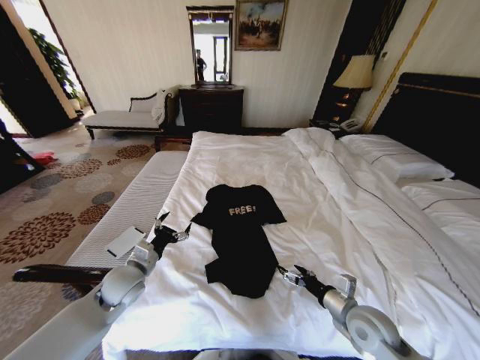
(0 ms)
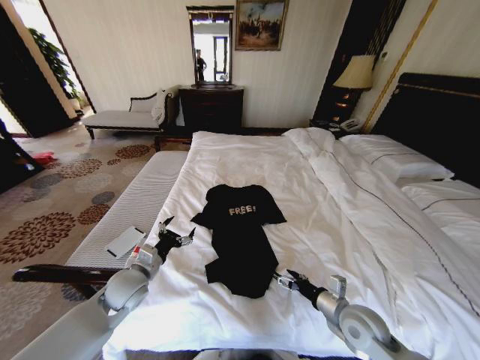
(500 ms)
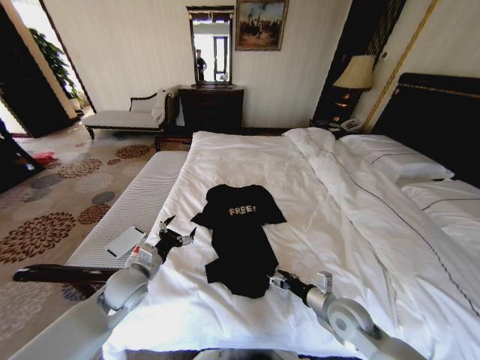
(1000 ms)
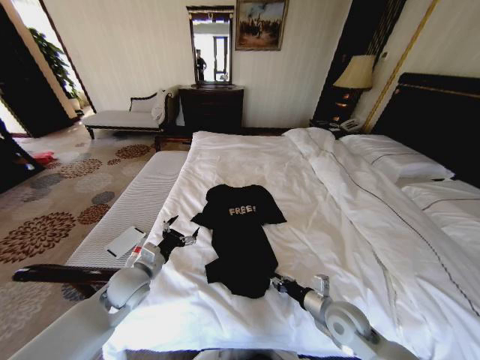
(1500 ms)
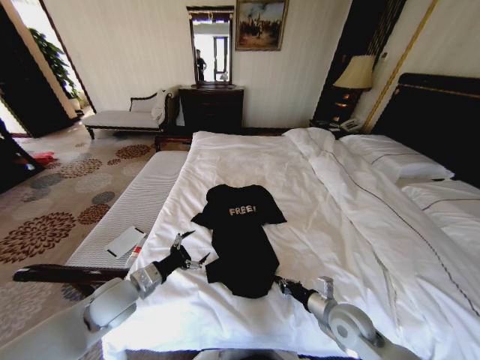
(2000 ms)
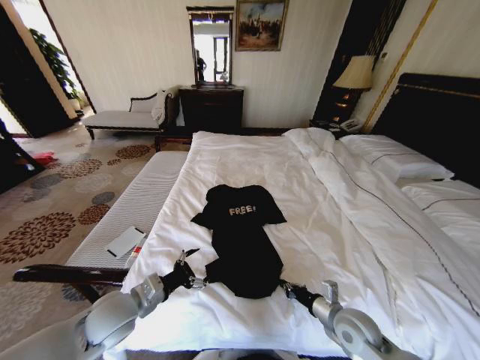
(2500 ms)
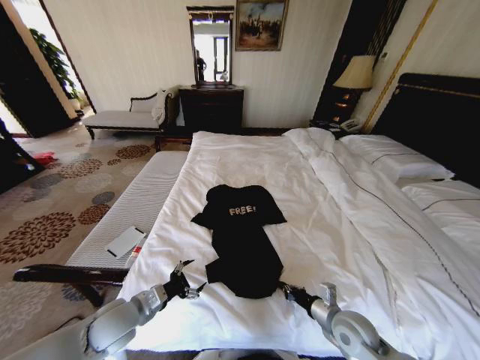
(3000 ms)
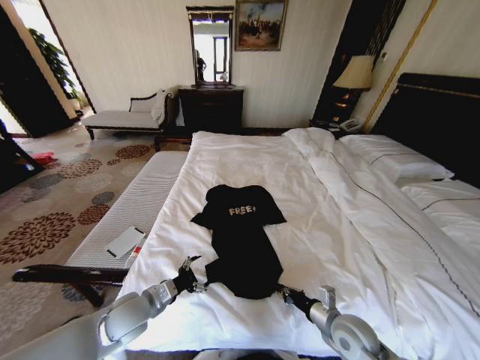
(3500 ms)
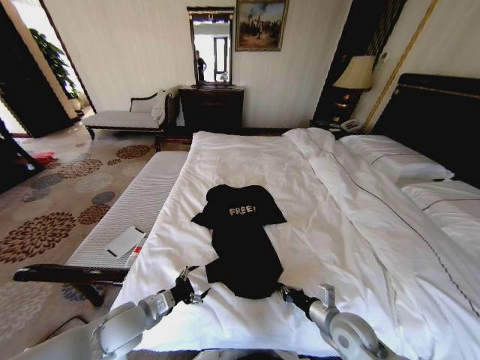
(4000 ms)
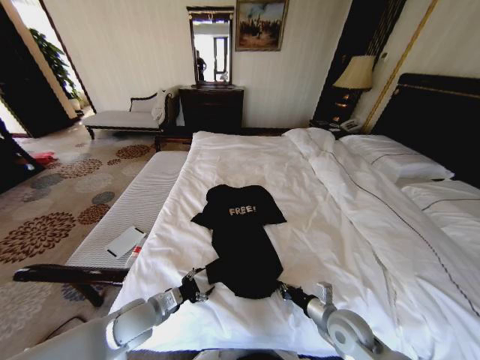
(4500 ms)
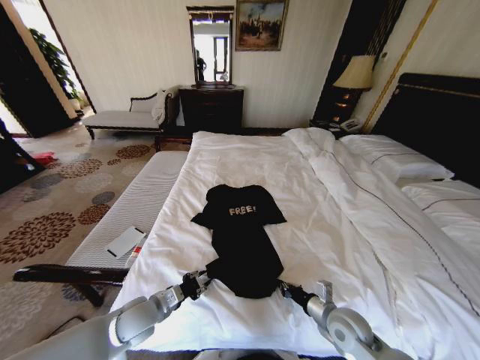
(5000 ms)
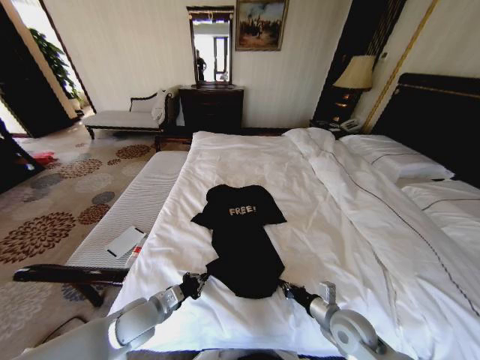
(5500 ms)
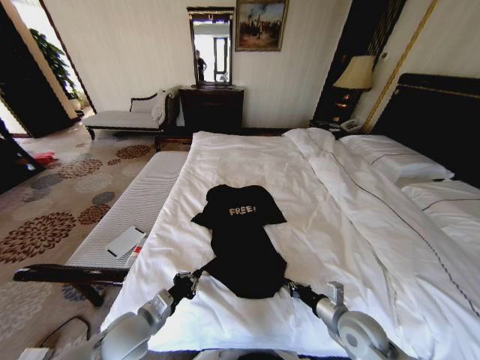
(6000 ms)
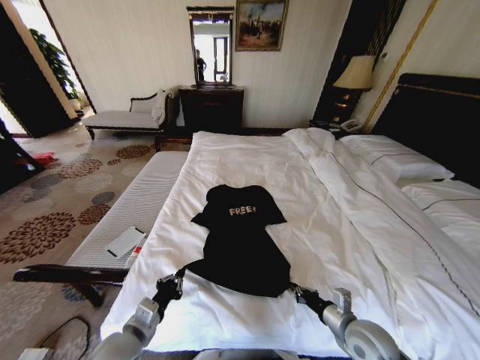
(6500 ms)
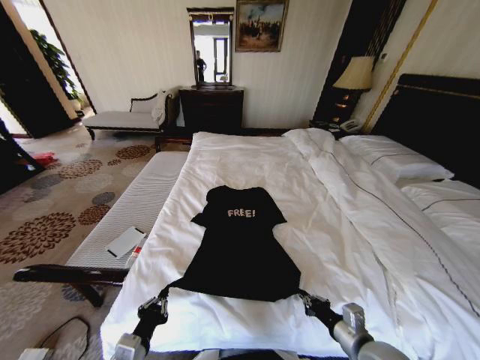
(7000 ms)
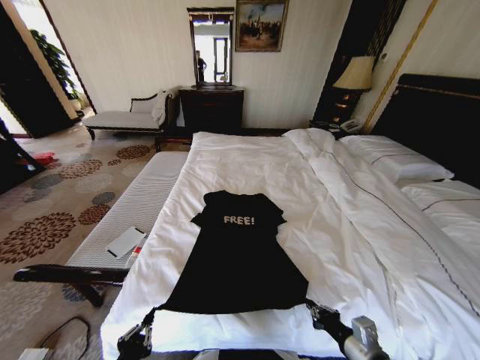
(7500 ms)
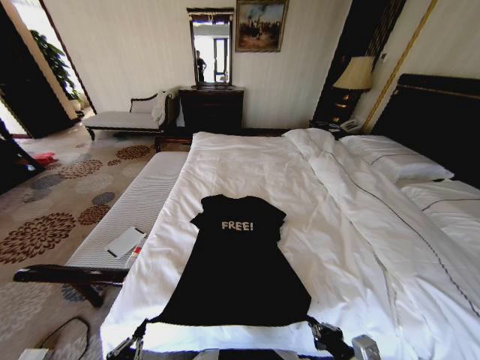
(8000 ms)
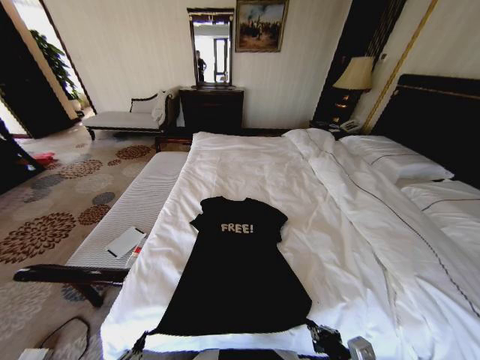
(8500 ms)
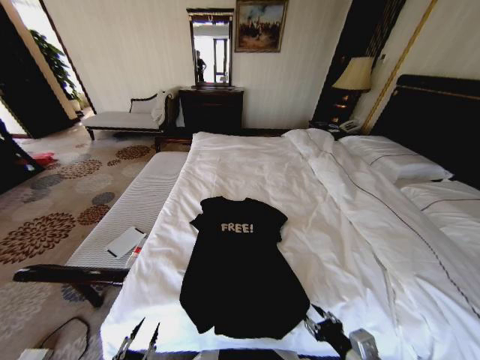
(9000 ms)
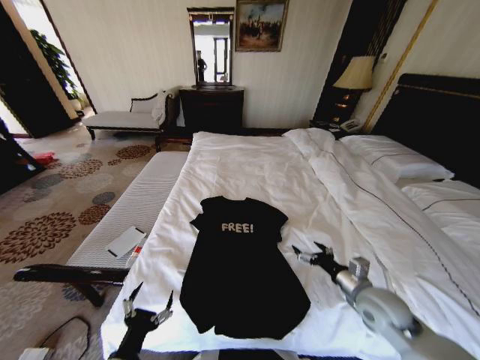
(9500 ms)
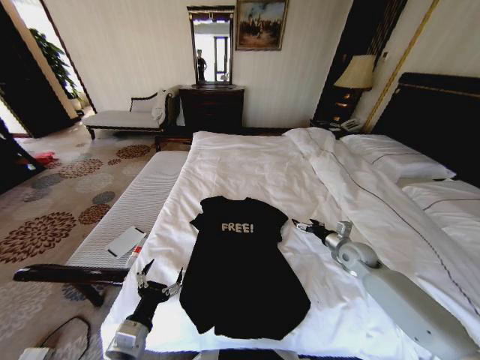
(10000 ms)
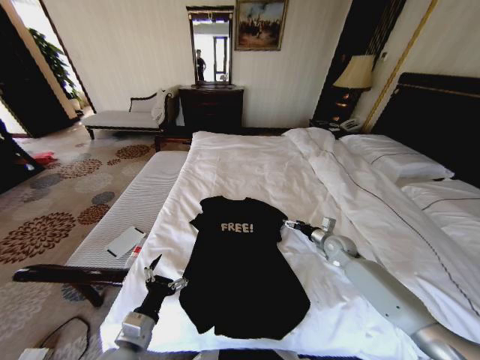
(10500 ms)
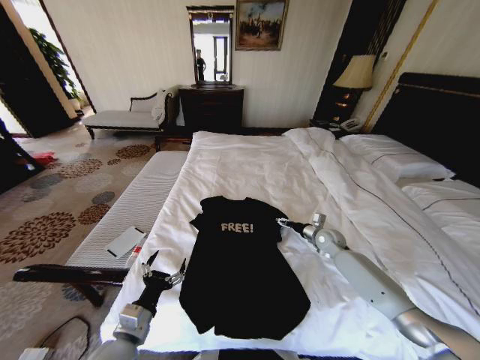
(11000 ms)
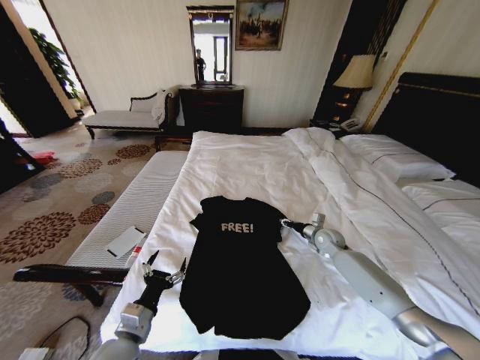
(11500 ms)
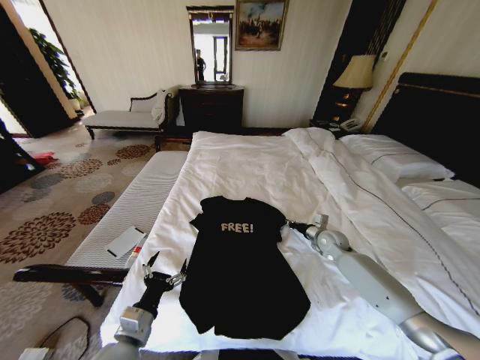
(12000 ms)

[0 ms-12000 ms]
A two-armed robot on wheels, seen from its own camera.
Task of the whole recording: Fold the clothes on the bed.
0 ms to 2000 ms: The right gripper closes.
2000 ms to 4000 ms: The left gripper changes place by some 5 cm.
4000 ms to 6000 ms: The left gripper closes.
6000 ms to 8000 ms: The right gripper is displaced backward by approximately 15 cm. The left gripper is displaced backward by roughly 20 cm.
8000 ms to 10000 ms: The right gripper shifts approximately 30 cm forward, and opens up. Meanwhile the left gripper is displaced forward by about 15 cm, and opens its fingers.
10000 ms to 12000 ms: The right gripper shifts some 5 cm forward, and closes up.

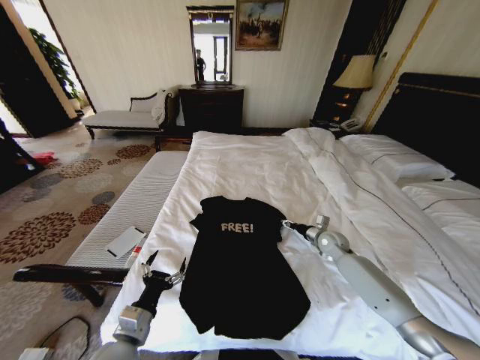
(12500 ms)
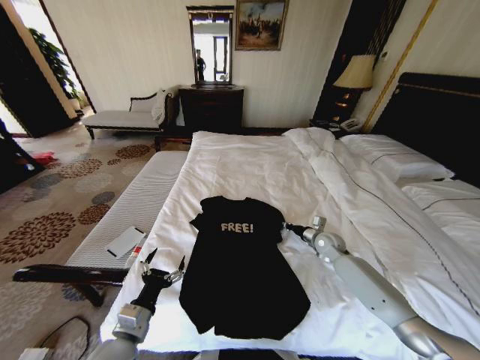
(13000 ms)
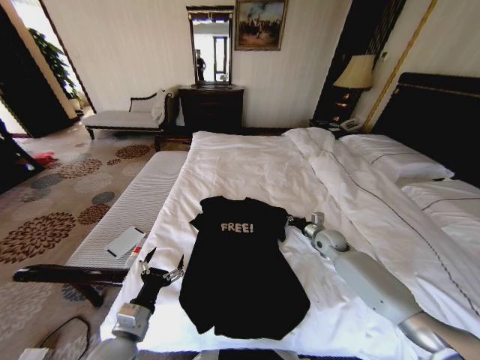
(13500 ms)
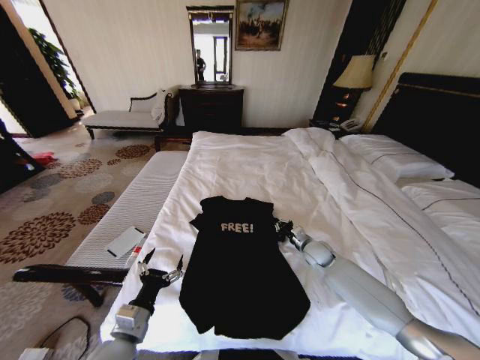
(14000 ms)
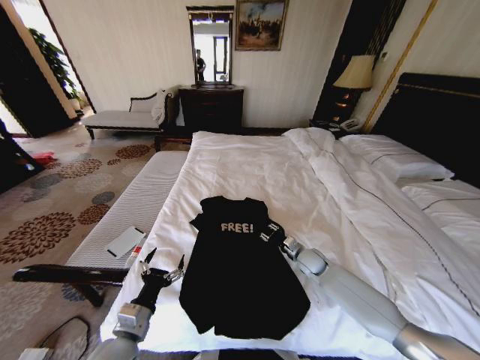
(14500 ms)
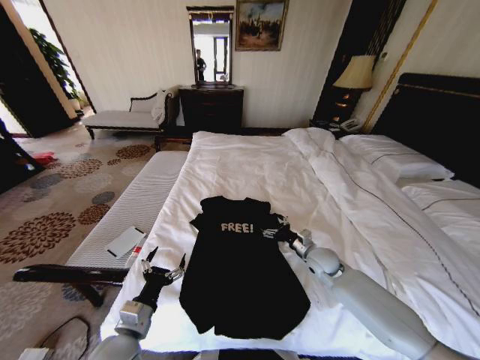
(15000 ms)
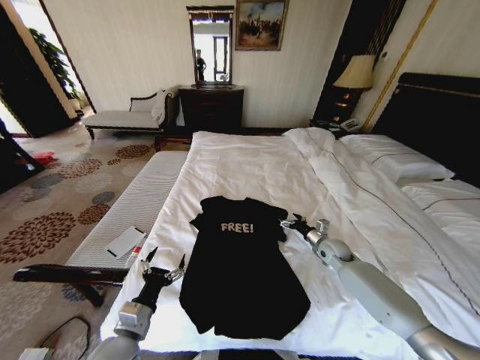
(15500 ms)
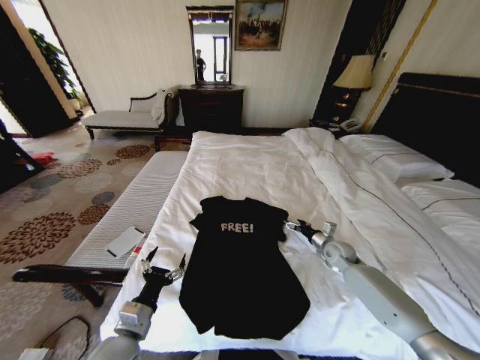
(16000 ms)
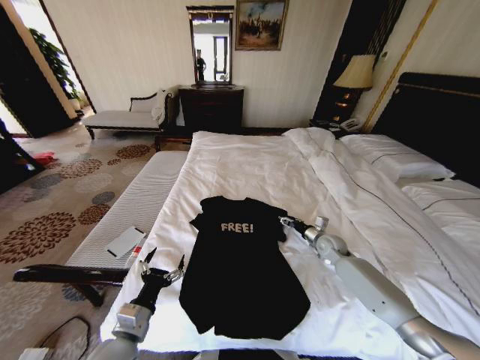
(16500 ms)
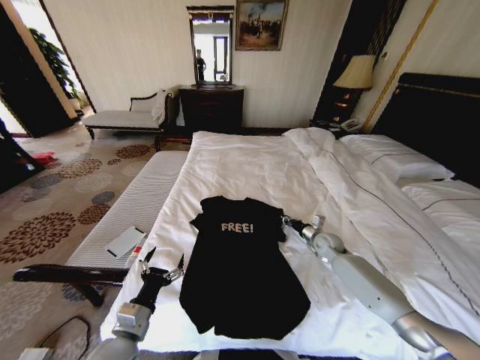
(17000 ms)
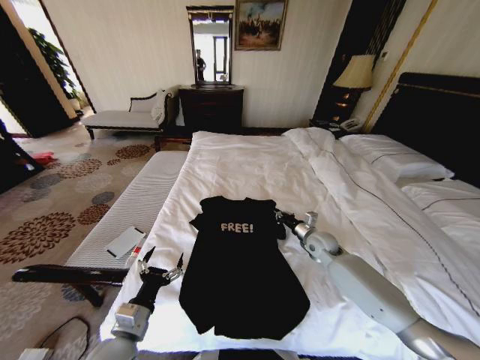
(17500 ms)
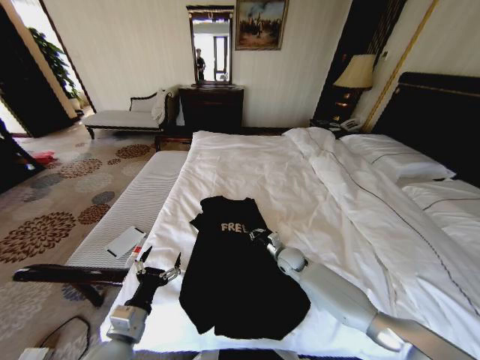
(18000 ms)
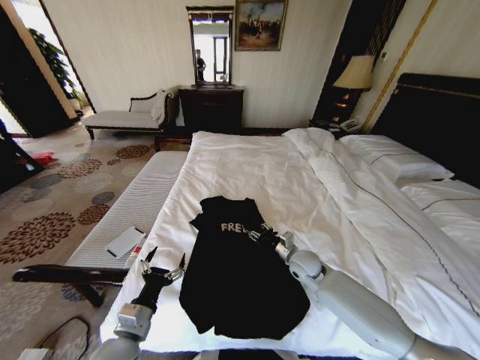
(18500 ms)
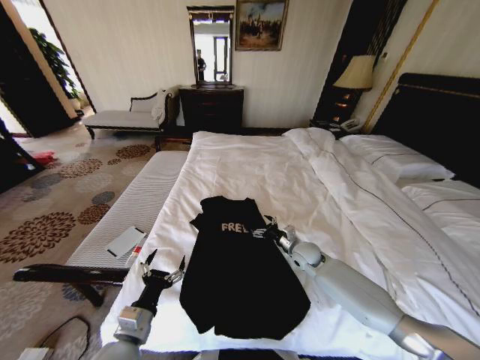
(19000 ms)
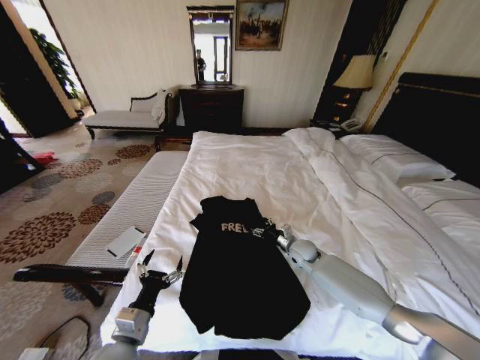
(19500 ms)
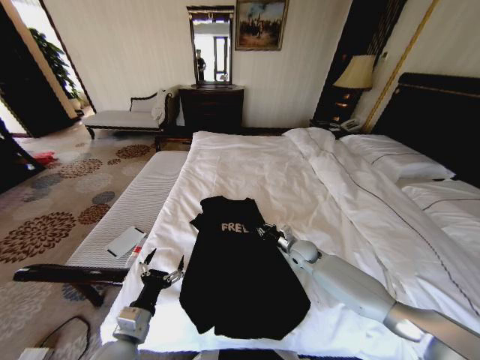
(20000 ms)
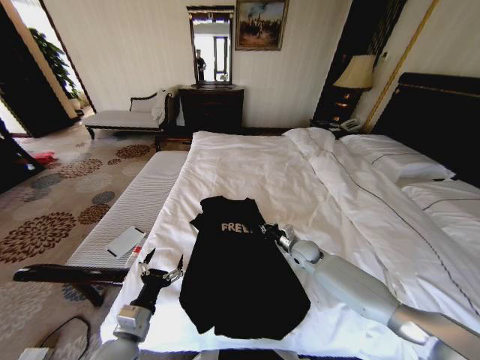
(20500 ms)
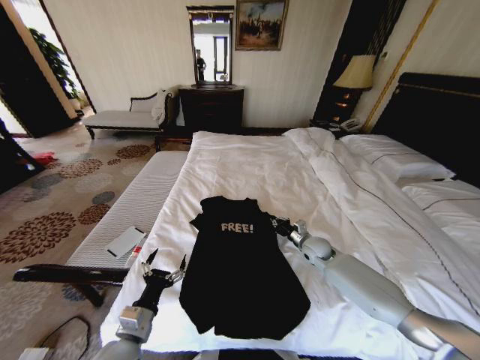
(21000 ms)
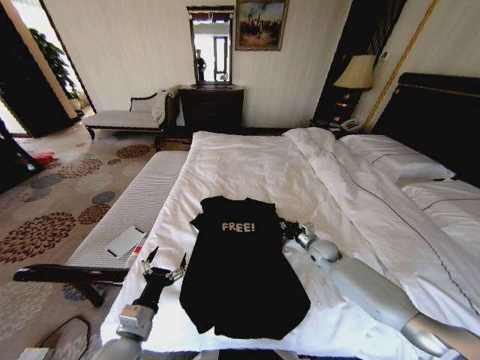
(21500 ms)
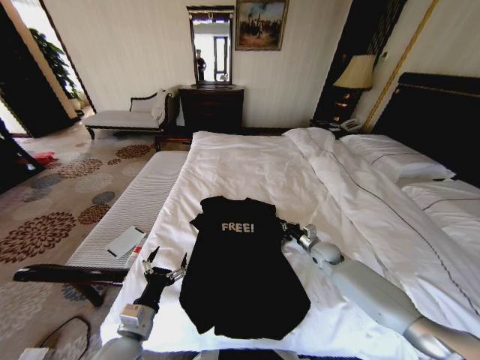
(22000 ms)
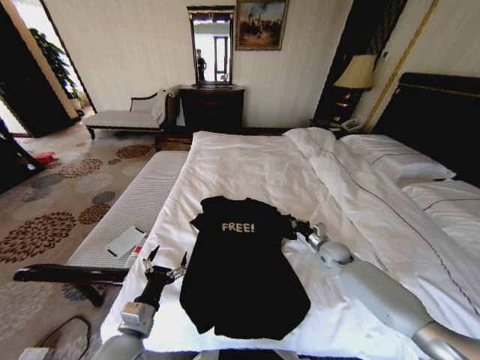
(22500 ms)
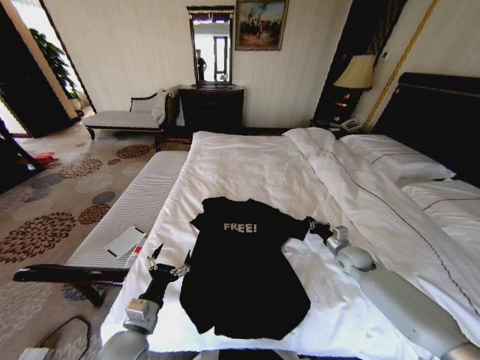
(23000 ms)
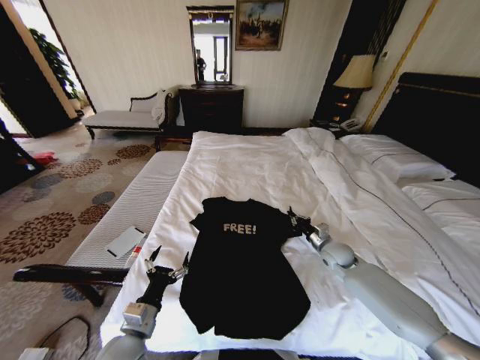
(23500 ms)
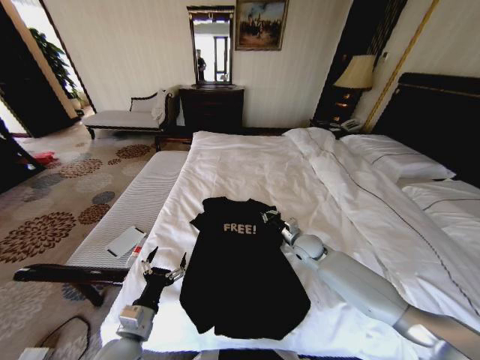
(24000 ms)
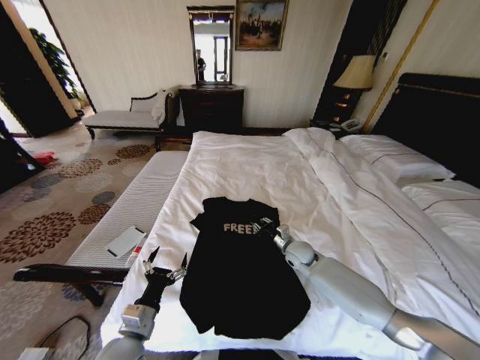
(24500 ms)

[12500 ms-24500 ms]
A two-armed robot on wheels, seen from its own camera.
Task of the whole recording: Fold the clothes on the bed.
12500 ms to 14500 ms: The right gripper heads to the left and downward, covering some 10 cm, and closes, then opens again.
14500 ms to 16500 ms: The right gripper shifts roughly 10 cm to the right.
16500 ms to 18500 ms: The right gripper moves to the left and backward, some 15 cm, and closes and opens again.
18500 ms to 20500 ms: The right gripper moves forward, roughly 5 cm, and closes its fingers.
20500 ms to 22500 ms: The right gripper is displaced to the right by roughly 10 cm.
22500 ms to 24500 ms: The right gripper shifts about 15 cm to the left.

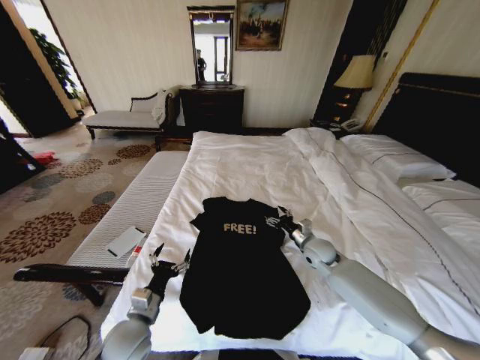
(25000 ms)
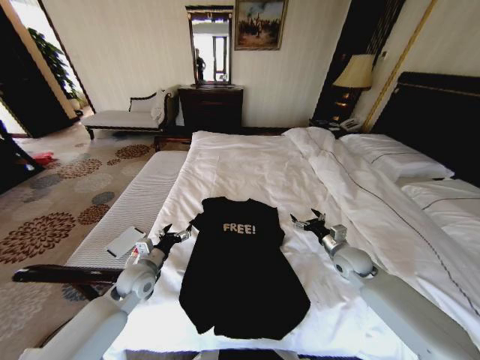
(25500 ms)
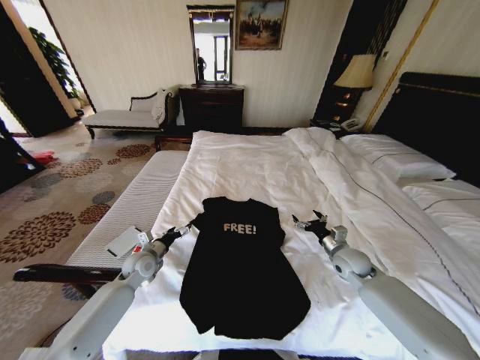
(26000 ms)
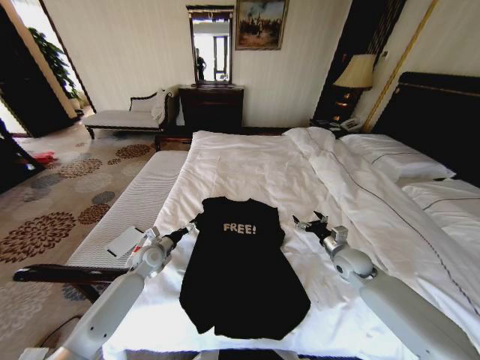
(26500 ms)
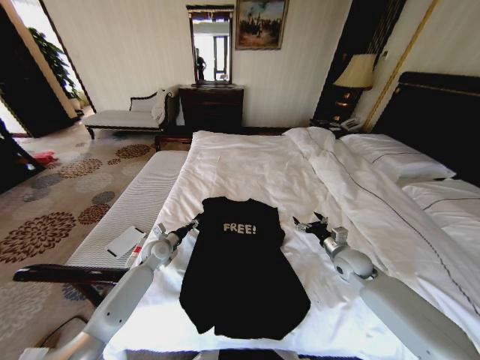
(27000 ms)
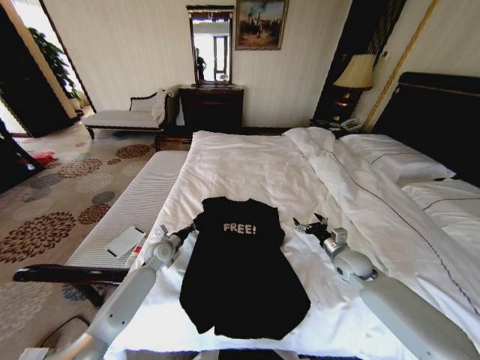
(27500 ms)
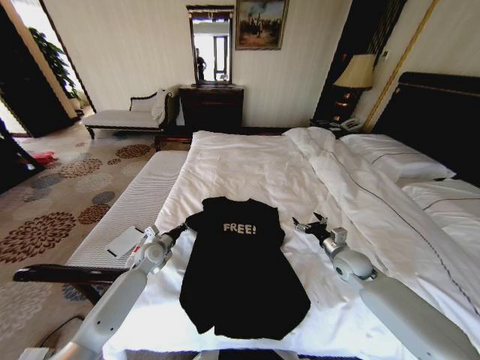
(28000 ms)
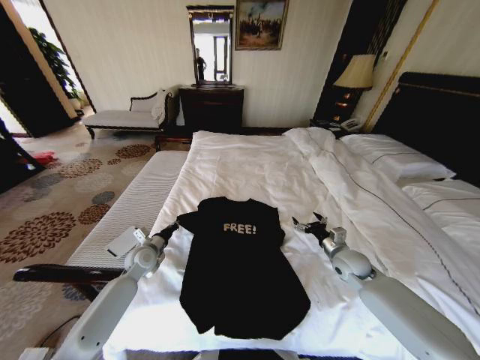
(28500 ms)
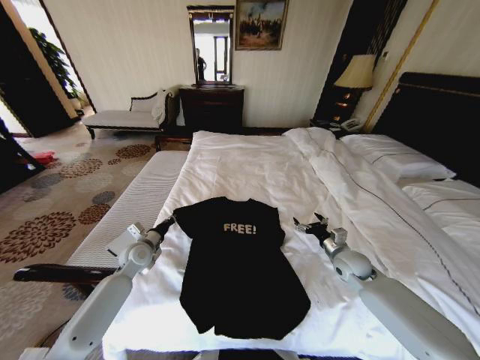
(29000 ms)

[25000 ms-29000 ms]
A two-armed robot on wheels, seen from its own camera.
Task of the whole recording: Fold the clothes on the bed.
25000 ms to 27000 ms: The left gripper shifts about 25 cm forward, while the right gripper travels to the right by approximately 10 cm.
27000 ms to 29000 ms: The left gripper heads upward, covering roughly 5 cm, and closes up.
